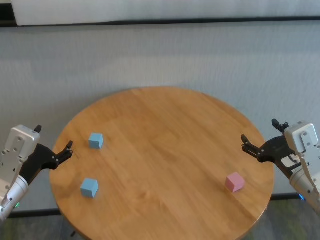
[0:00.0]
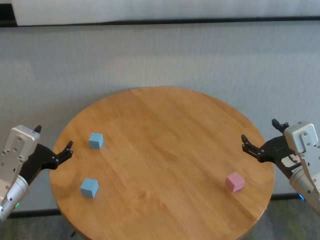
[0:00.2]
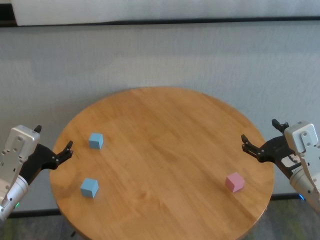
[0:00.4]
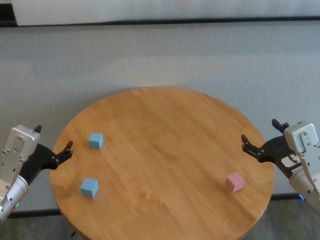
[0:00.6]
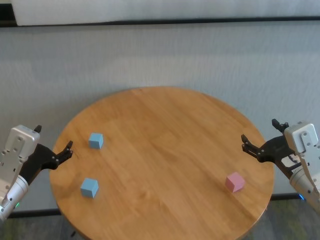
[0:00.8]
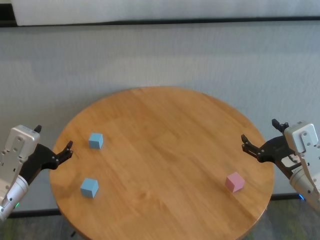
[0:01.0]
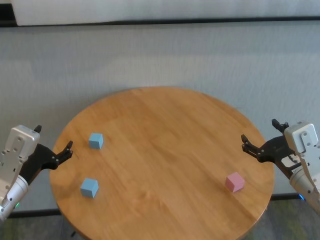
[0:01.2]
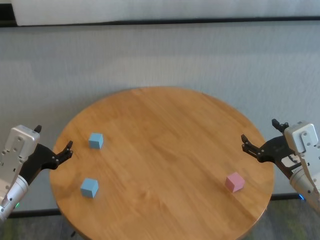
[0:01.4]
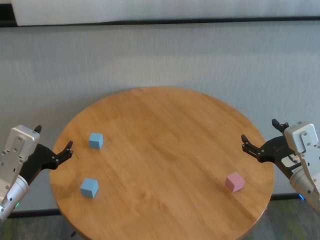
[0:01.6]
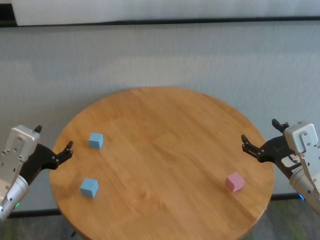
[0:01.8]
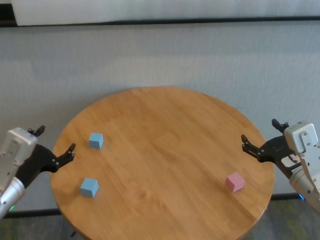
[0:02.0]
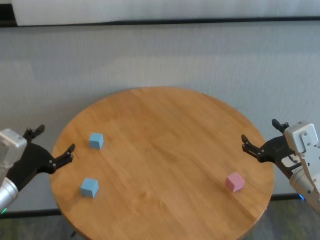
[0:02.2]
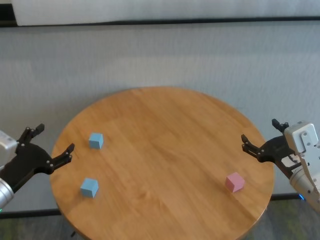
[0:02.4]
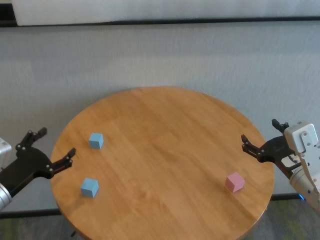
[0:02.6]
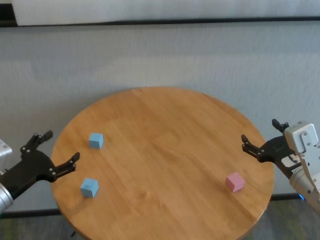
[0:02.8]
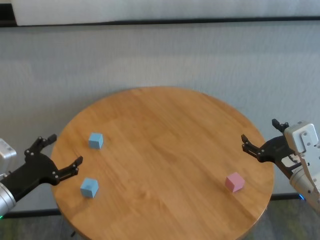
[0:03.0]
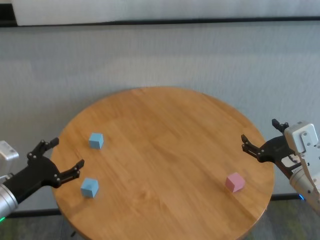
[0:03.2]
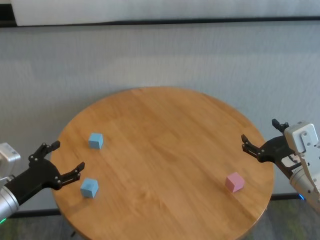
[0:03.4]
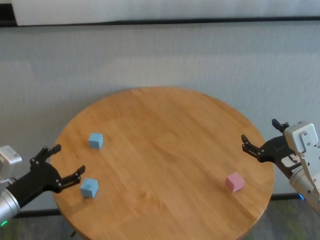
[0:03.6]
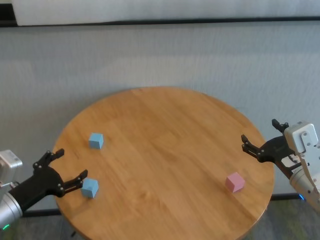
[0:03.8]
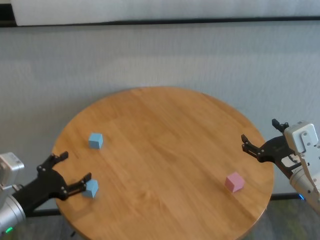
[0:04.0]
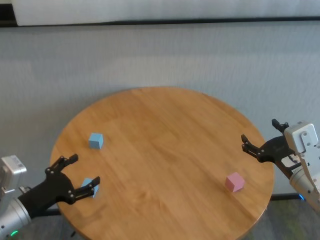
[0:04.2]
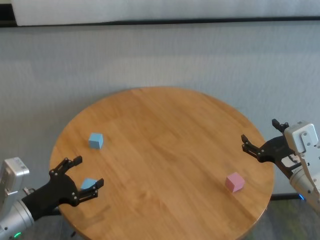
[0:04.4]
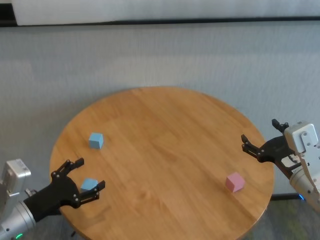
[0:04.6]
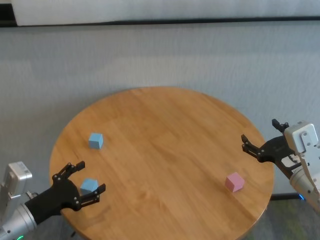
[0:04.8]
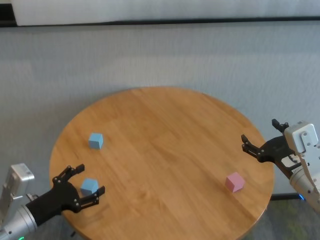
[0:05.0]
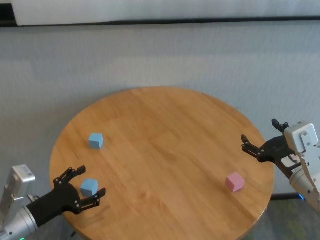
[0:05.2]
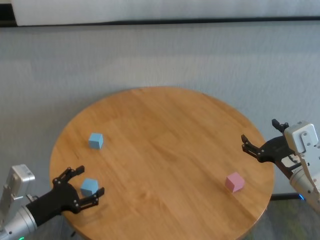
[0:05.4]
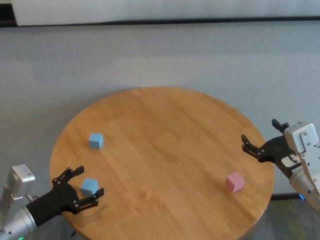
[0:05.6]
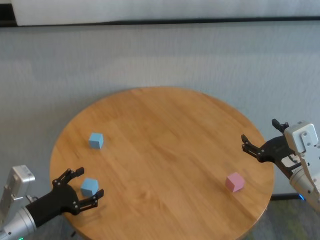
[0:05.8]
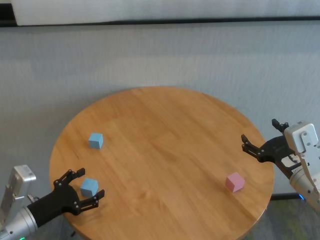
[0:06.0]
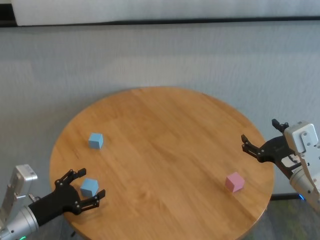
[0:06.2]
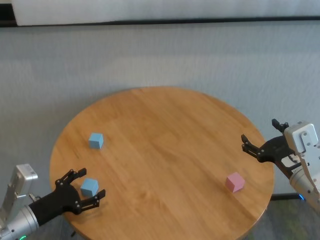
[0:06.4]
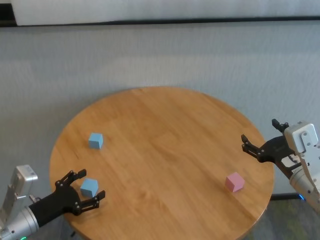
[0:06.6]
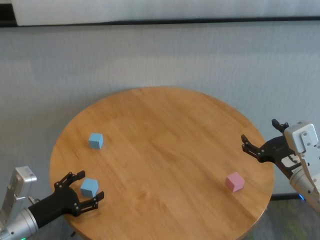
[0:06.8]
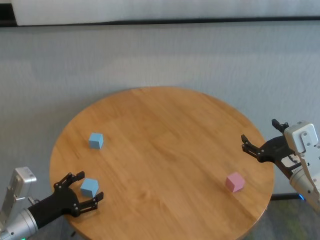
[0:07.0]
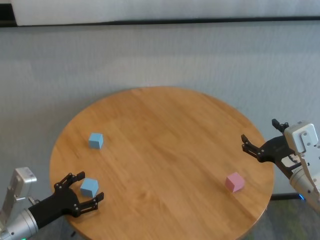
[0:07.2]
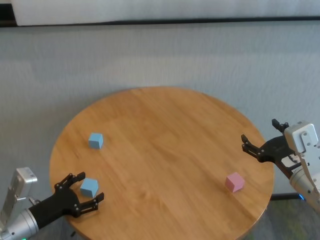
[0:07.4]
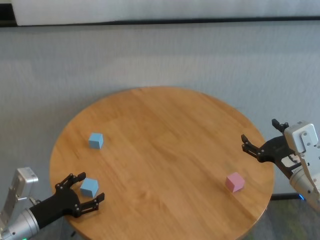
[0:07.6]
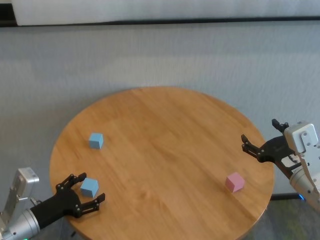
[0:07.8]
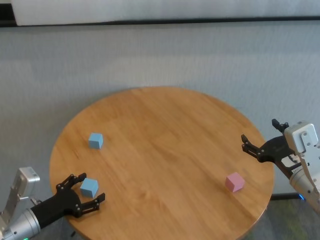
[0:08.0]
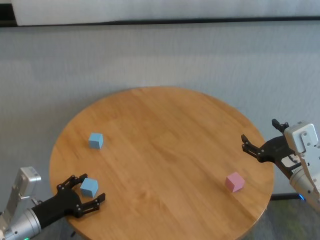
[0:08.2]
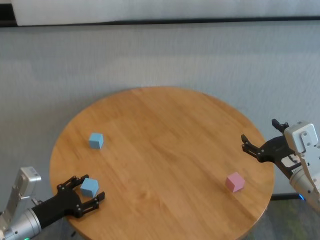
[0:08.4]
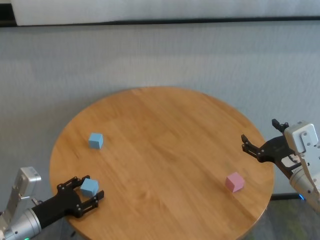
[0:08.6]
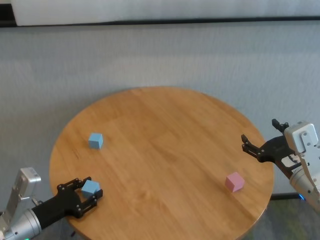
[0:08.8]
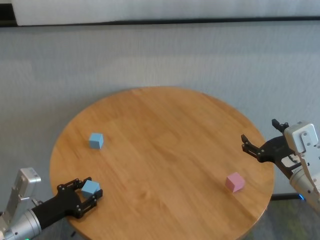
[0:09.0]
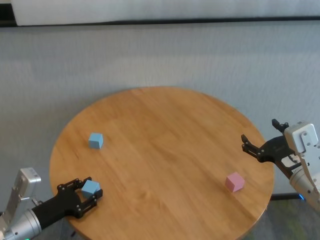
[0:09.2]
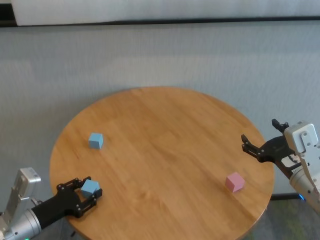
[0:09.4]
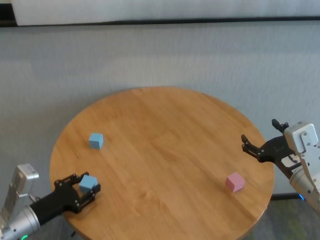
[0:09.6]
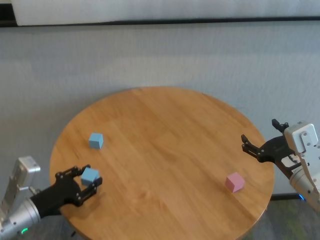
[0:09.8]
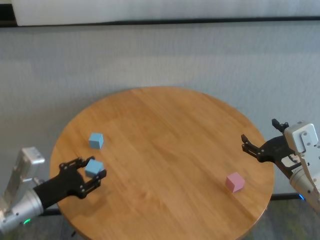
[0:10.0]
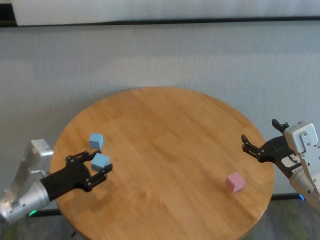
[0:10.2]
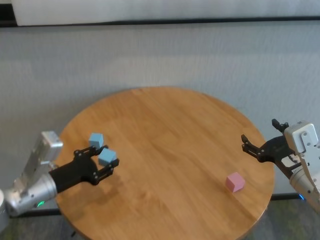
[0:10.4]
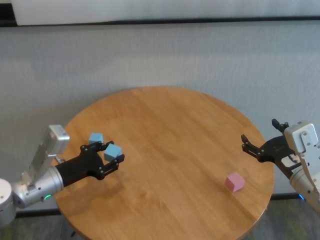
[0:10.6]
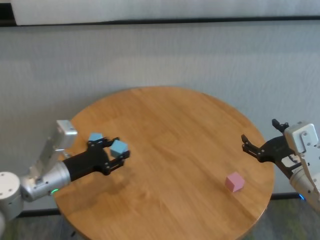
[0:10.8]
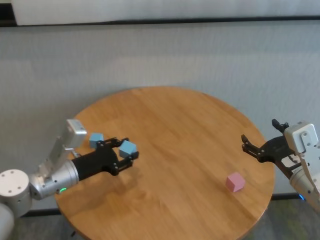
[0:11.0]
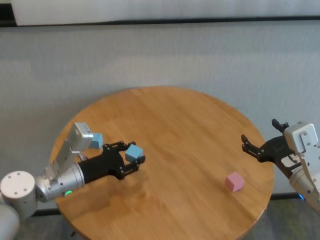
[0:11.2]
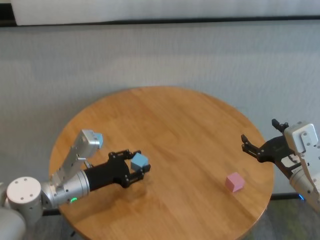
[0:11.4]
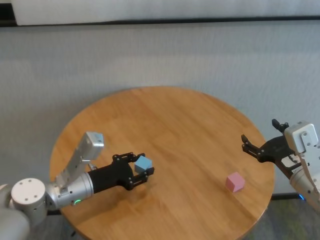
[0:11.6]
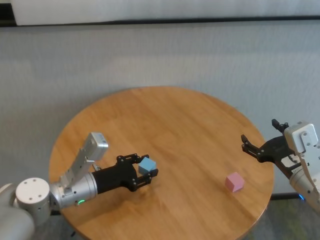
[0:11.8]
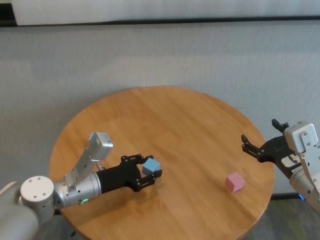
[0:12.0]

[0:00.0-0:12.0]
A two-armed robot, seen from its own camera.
Task of the whole recording: stack building blocks on the table.
Step, 0:00.0 to 0:08.6: Grasp the blue building block with left gripper.

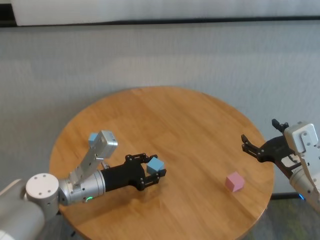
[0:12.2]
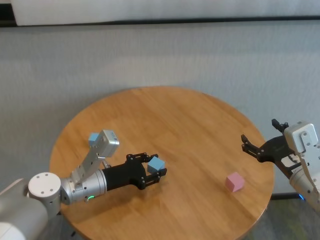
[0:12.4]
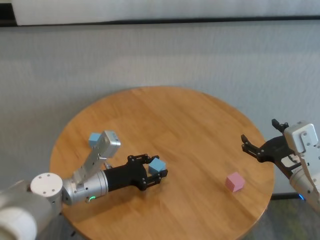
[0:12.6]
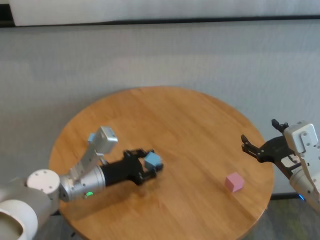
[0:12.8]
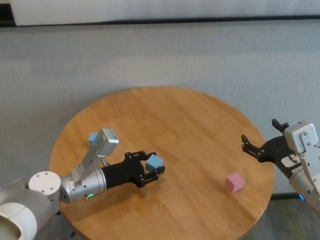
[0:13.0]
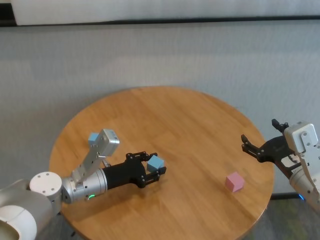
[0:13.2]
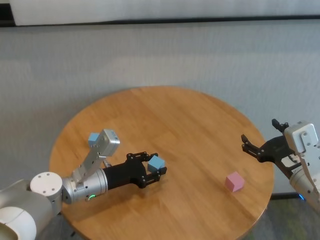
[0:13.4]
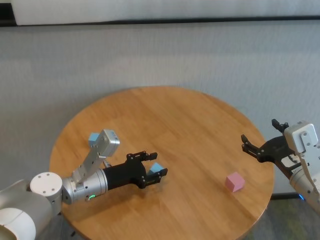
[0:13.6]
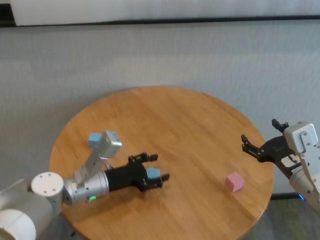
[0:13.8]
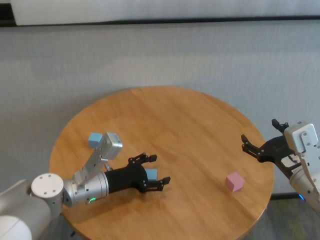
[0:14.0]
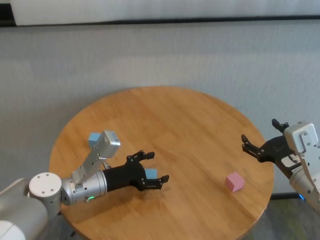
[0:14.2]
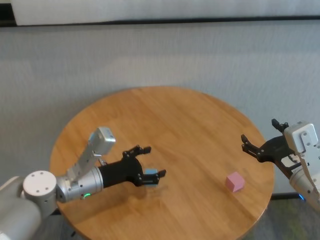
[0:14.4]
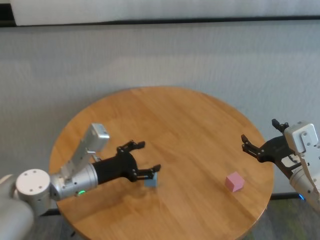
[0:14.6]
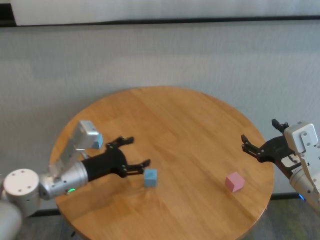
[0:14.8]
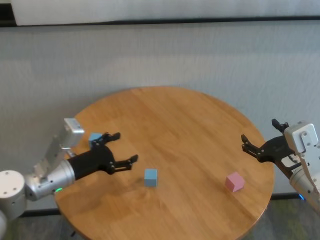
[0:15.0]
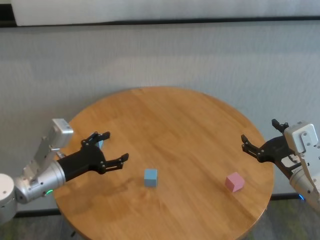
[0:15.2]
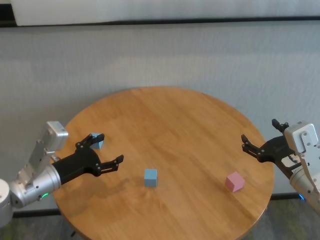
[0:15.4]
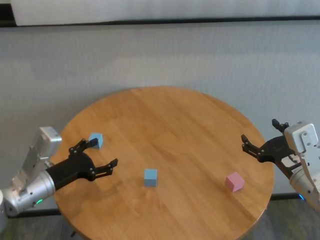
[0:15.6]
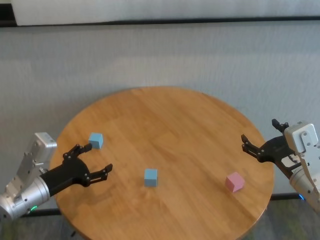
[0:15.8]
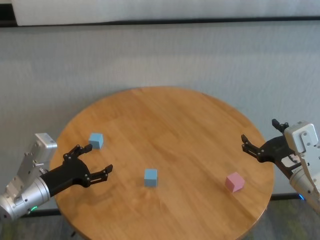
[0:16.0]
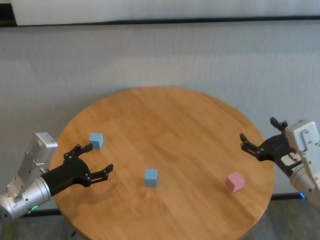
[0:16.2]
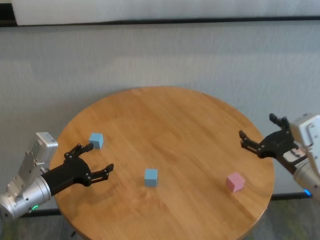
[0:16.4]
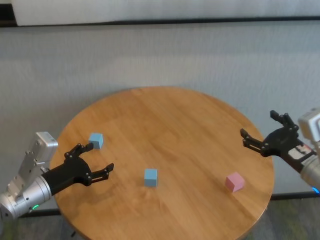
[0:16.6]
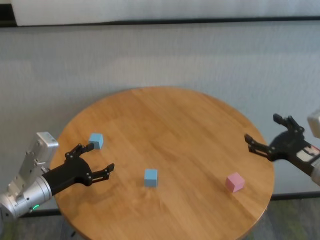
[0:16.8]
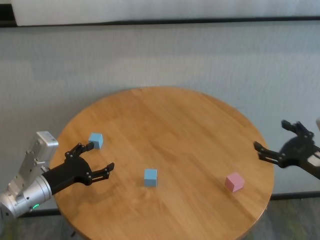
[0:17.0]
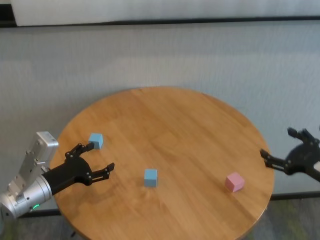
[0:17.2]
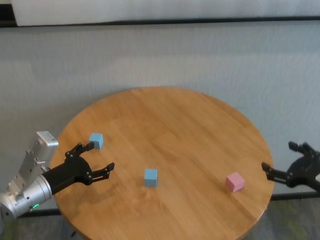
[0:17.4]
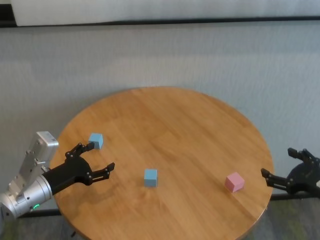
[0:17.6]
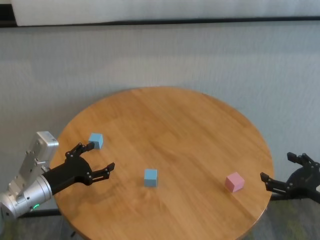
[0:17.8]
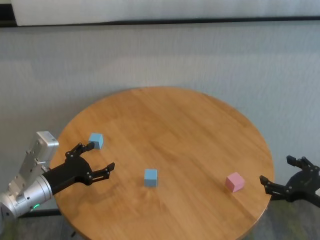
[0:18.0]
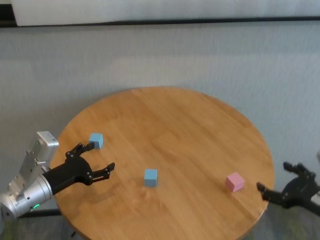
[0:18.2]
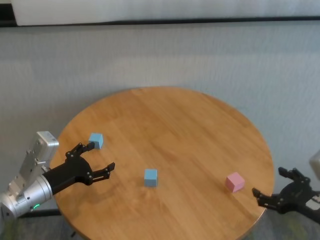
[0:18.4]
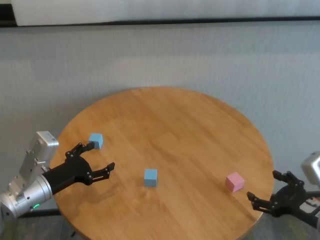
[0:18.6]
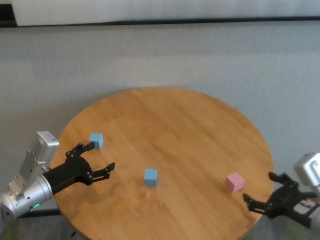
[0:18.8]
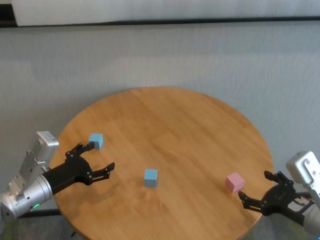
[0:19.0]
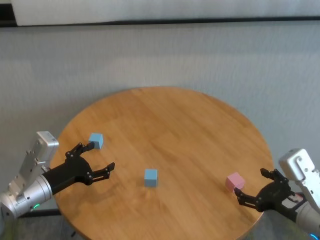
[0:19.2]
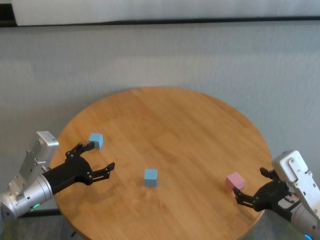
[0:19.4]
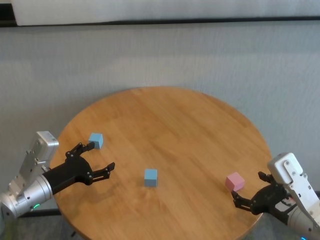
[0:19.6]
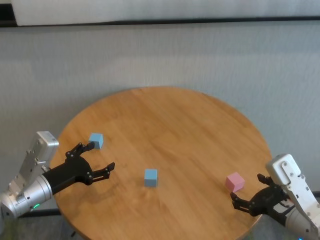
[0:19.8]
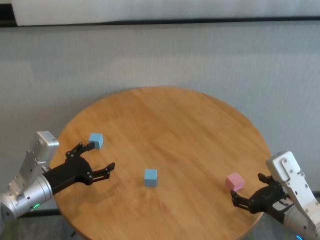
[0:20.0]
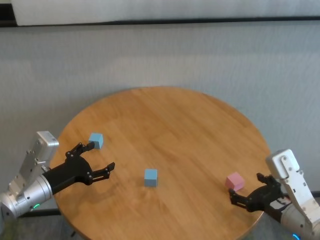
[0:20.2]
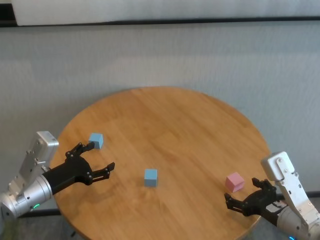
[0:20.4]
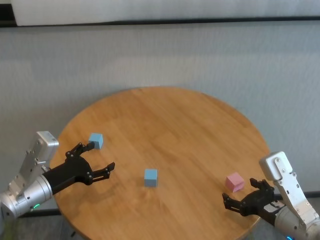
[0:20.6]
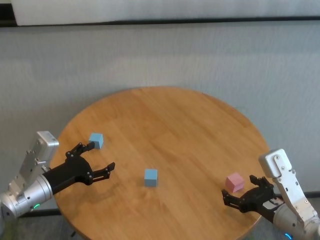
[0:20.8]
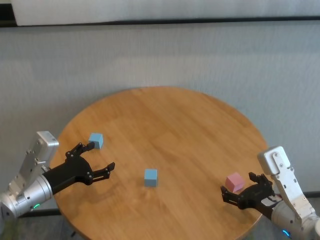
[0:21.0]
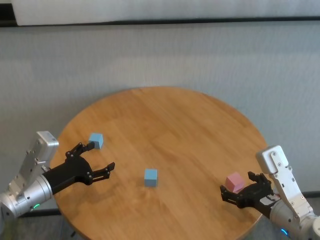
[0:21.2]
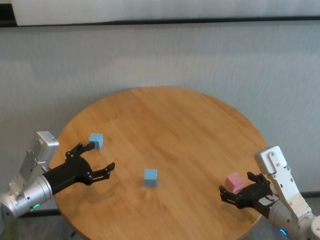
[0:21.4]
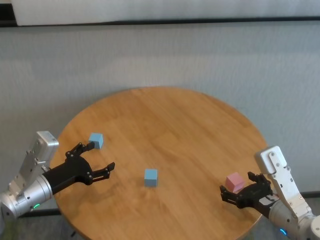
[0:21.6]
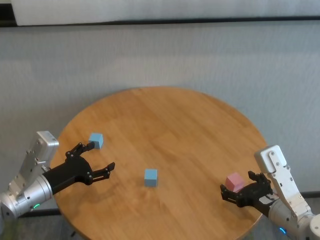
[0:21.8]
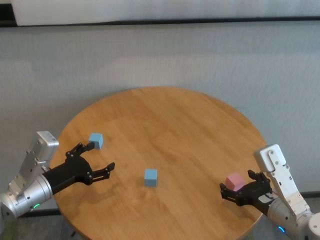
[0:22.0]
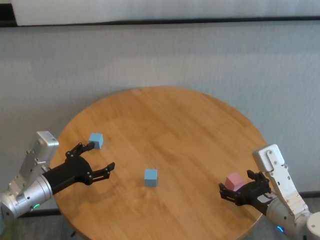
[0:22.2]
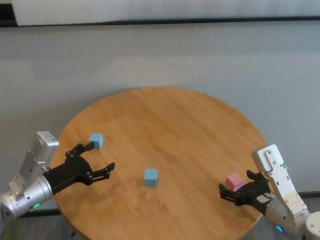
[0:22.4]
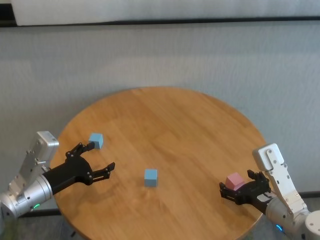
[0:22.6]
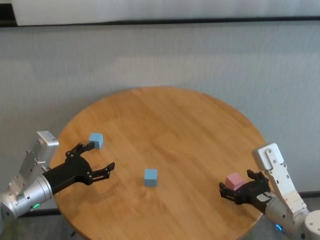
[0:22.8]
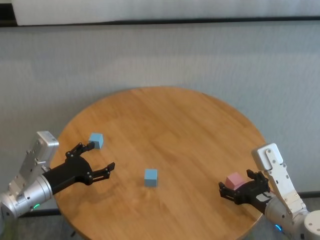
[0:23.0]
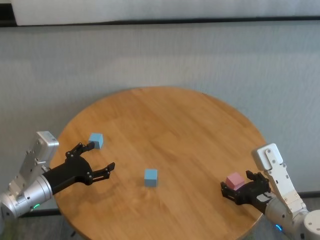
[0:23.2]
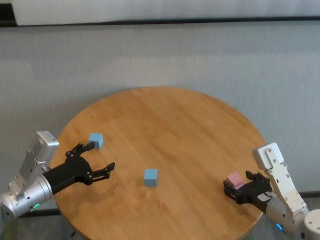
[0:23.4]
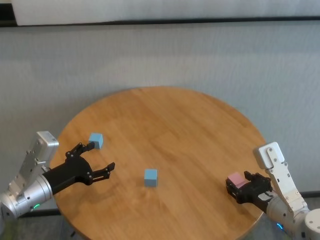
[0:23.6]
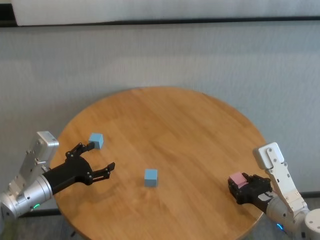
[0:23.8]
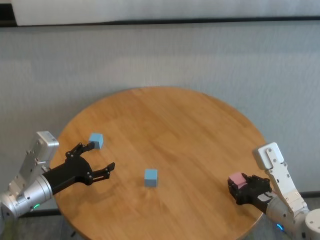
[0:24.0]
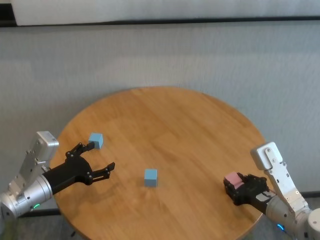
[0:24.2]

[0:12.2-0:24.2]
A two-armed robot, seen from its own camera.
Task of the whole recording: stack building blocks on the table.
Step, 0:14.0 to 0:23.8: Grasp the pink building block with right gripper.
